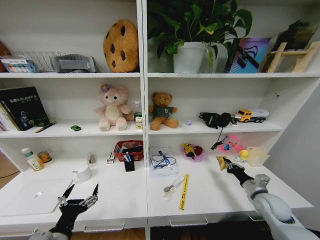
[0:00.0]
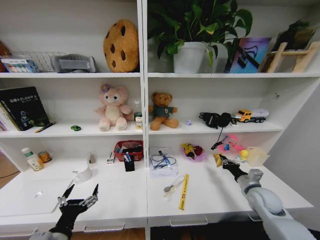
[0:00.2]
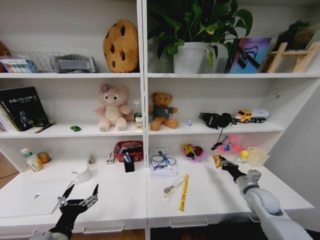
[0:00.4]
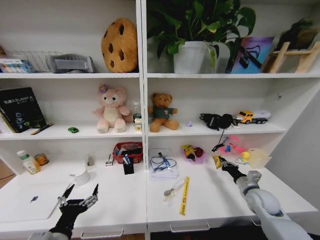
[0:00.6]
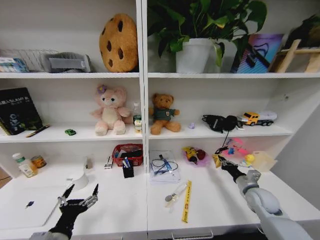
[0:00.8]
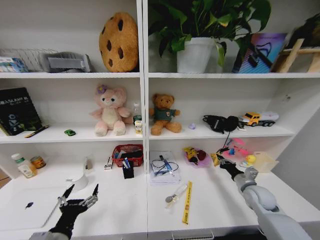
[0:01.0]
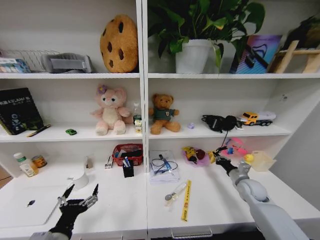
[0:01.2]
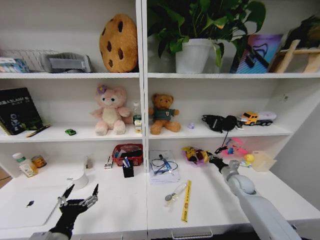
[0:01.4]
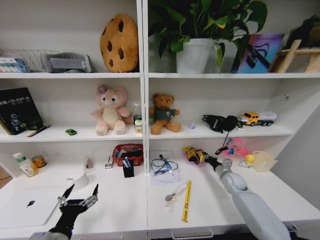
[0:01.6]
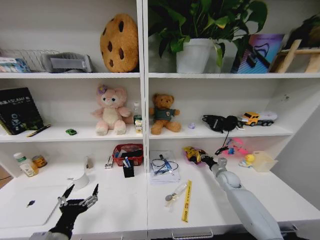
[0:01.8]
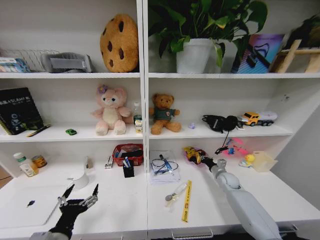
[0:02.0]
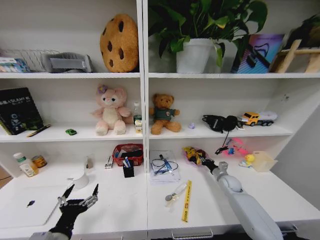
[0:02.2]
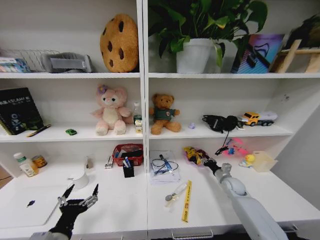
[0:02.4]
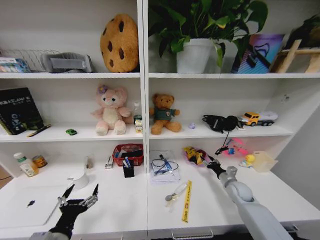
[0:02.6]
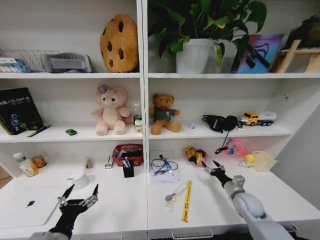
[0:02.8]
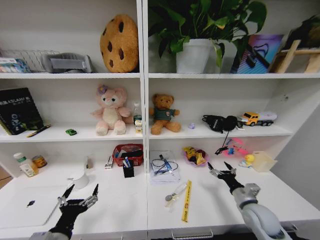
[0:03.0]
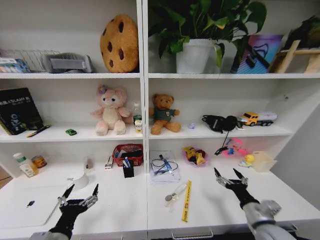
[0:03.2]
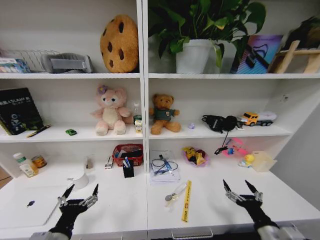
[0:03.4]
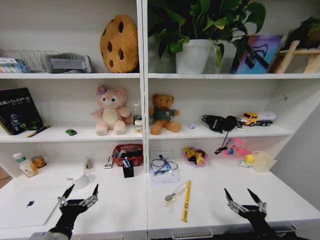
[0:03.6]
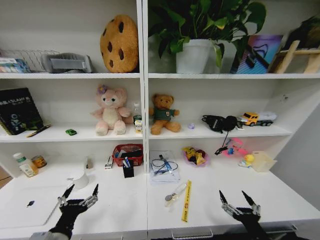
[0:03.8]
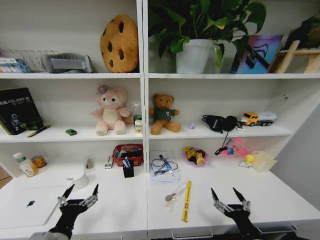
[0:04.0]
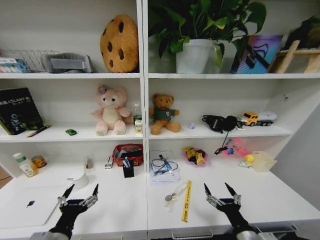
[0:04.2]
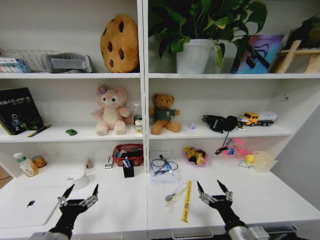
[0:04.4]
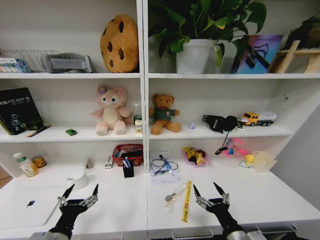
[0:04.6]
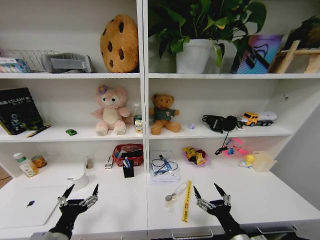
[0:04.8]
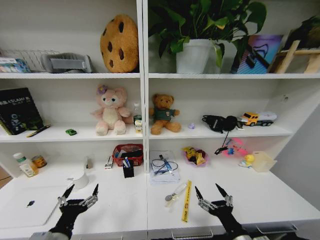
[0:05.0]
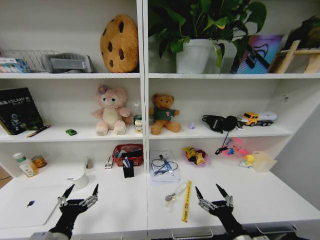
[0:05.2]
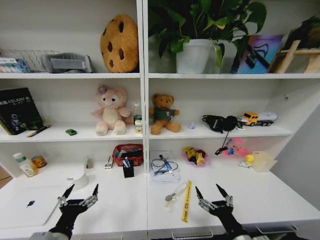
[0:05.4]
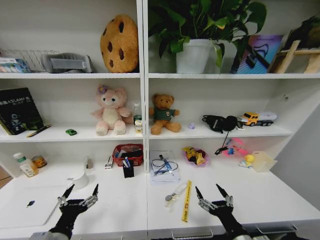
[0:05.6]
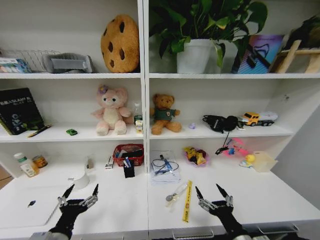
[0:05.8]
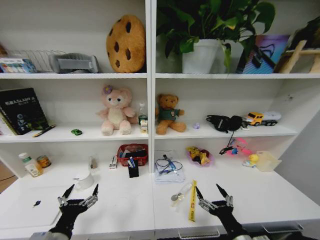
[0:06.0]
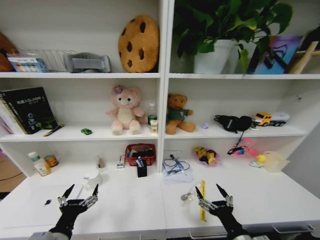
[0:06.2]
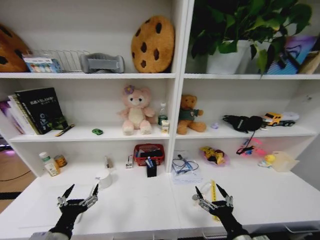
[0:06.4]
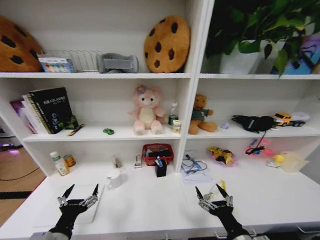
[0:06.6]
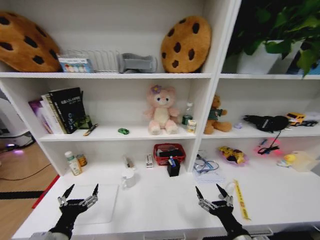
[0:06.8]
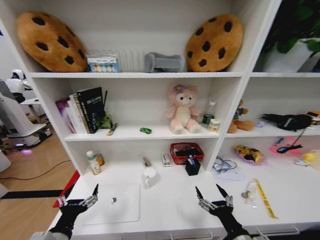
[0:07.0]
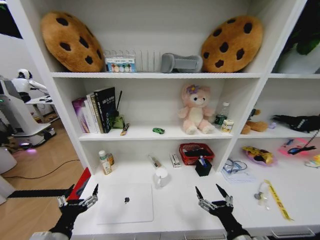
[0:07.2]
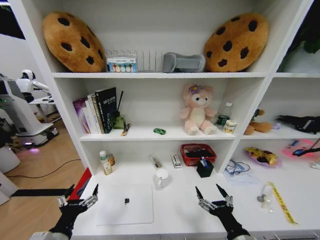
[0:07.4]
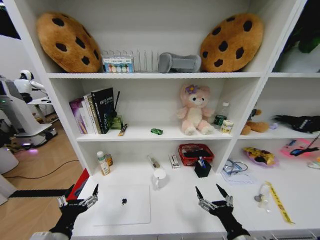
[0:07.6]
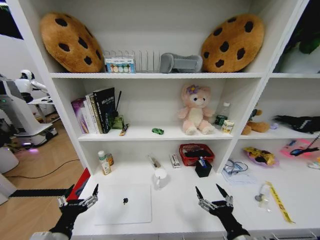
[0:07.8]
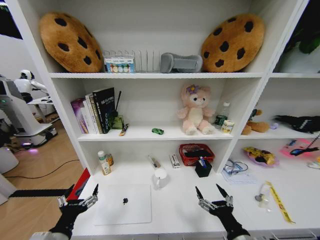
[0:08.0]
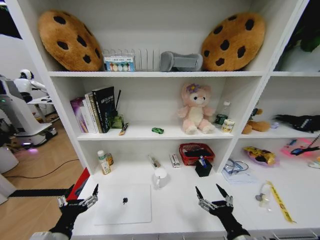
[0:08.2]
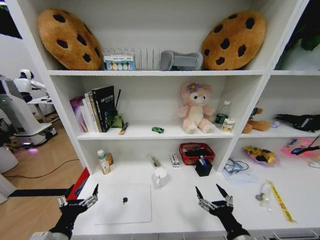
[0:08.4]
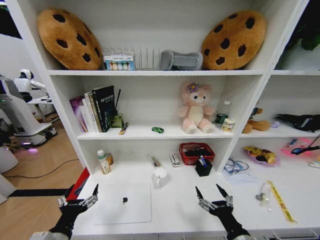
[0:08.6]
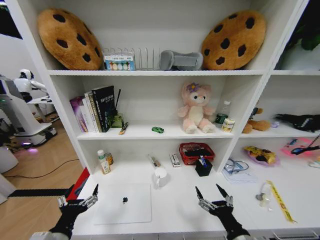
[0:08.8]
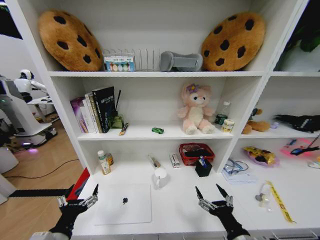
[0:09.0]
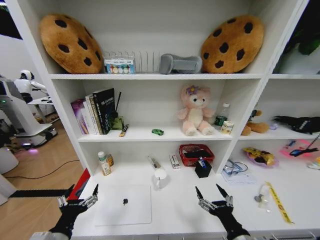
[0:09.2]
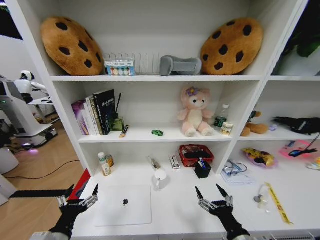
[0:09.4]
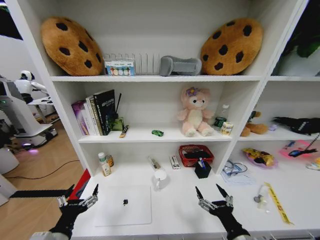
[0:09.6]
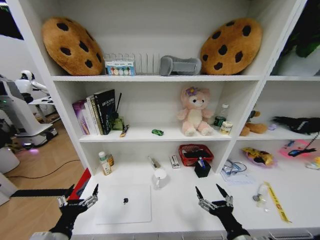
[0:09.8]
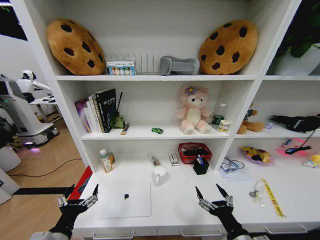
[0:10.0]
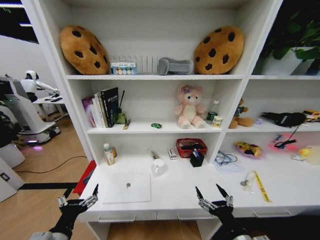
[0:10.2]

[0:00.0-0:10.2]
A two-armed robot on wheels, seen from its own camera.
Task of the whole recording: Organize the objects on the table.
0:00.0 to 0:01.4: The right gripper shifts about 10 cm forward.
0:01.4 to 0:03.0: The right gripper shifts some 15 cm backward, and opens.
0:03.0 to 0:04.4: The right gripper shifts about 20 cm backward and to the left.
0:04.4 to 0:05.8: The grippers stay close to where they were, moving slightly.
0:07.2 to 0:08.8: Neither gripper changes place.
